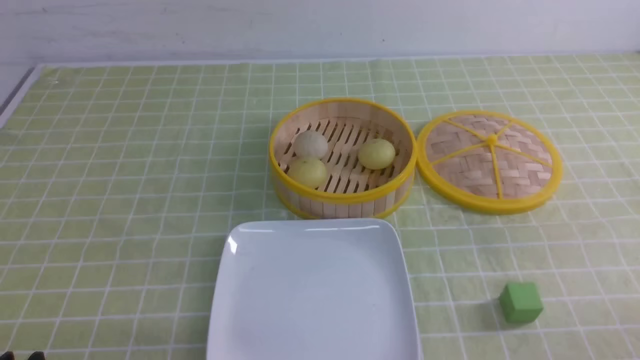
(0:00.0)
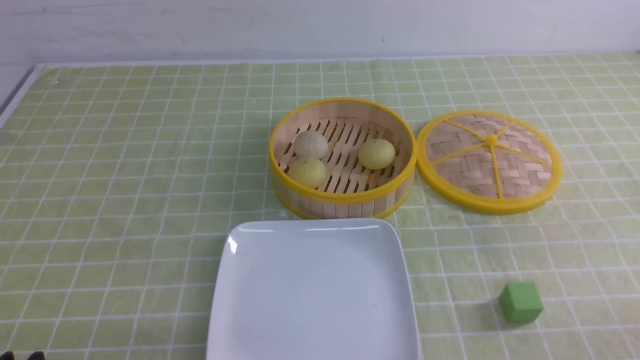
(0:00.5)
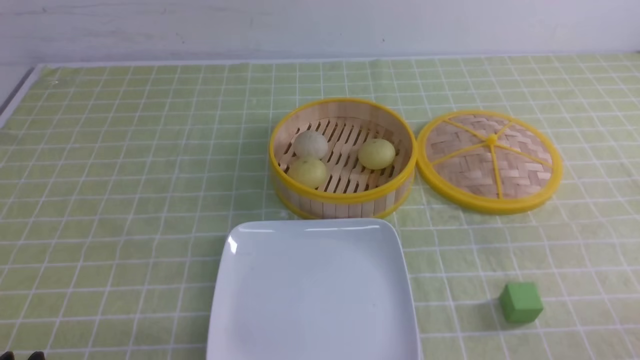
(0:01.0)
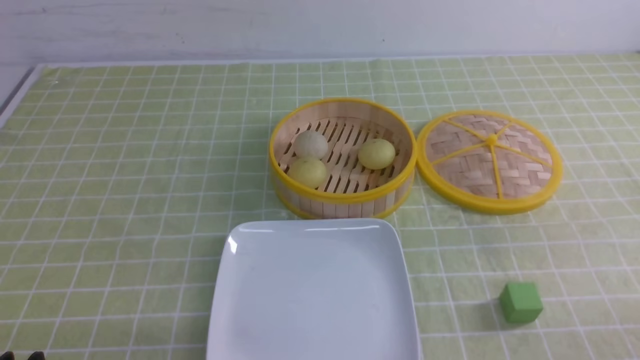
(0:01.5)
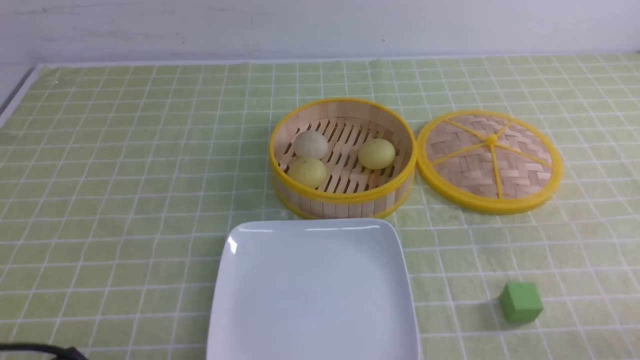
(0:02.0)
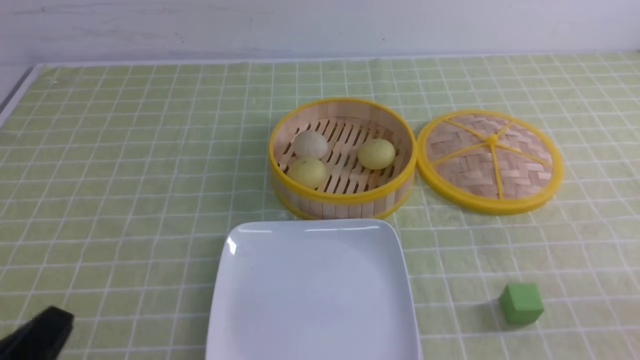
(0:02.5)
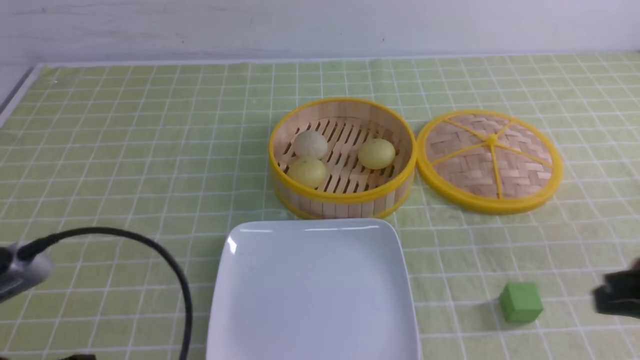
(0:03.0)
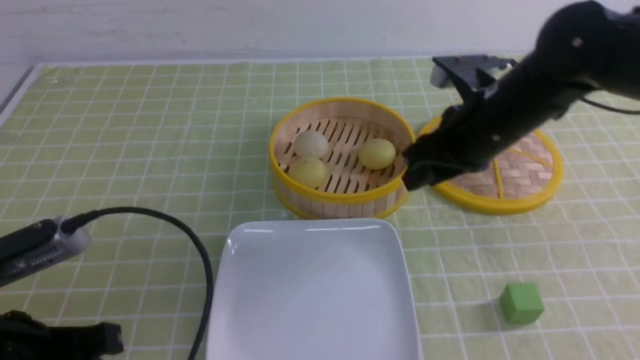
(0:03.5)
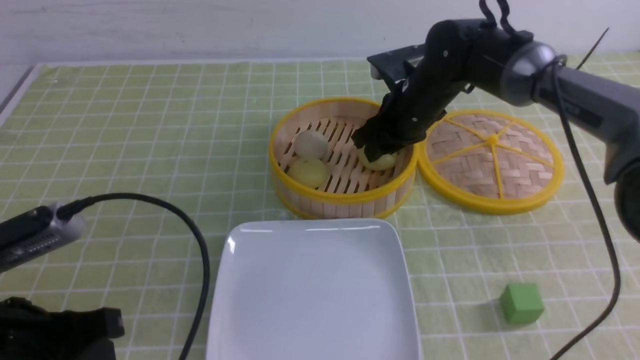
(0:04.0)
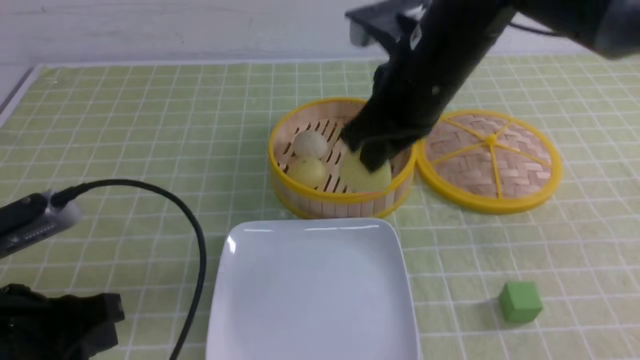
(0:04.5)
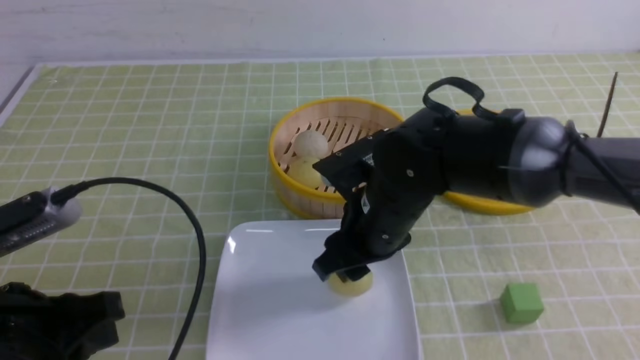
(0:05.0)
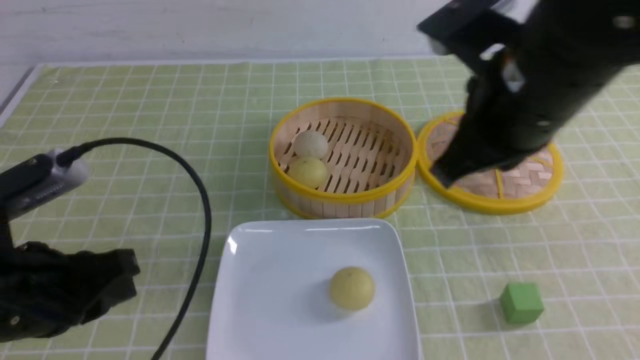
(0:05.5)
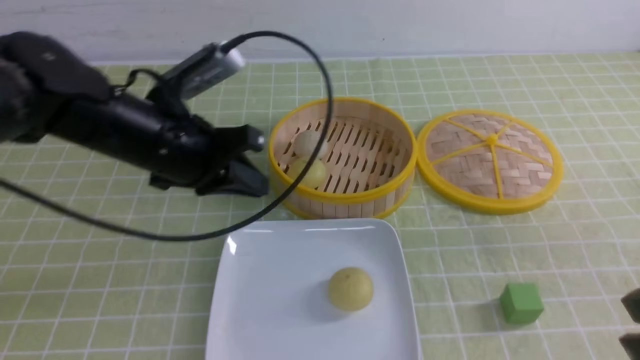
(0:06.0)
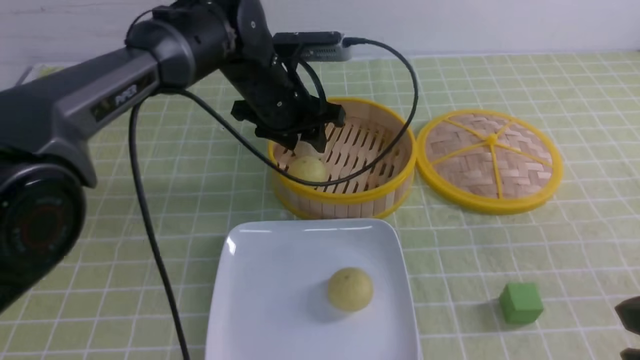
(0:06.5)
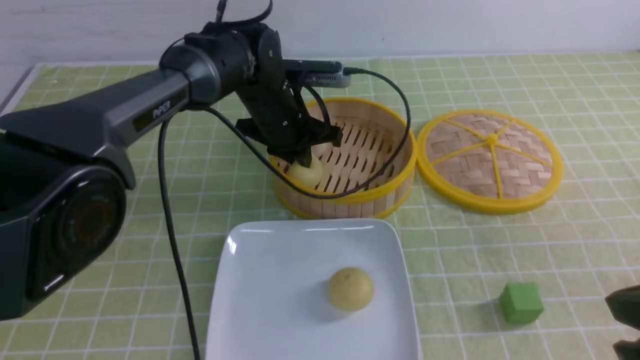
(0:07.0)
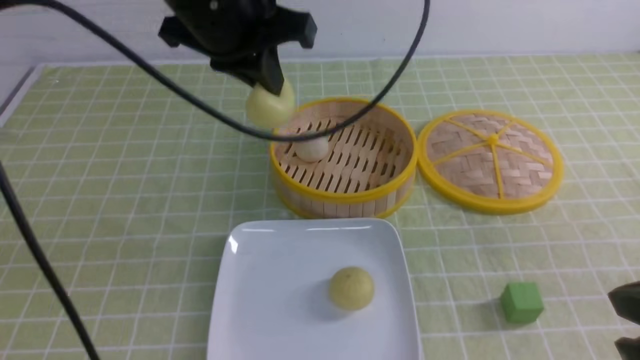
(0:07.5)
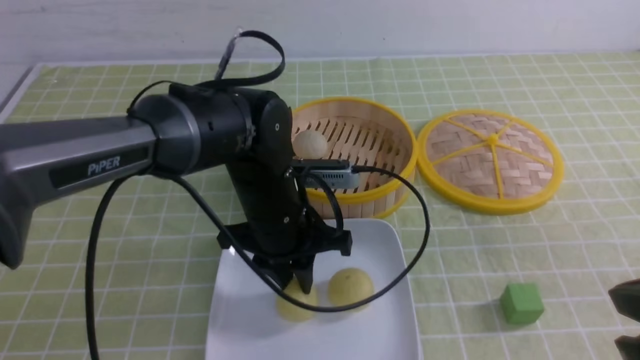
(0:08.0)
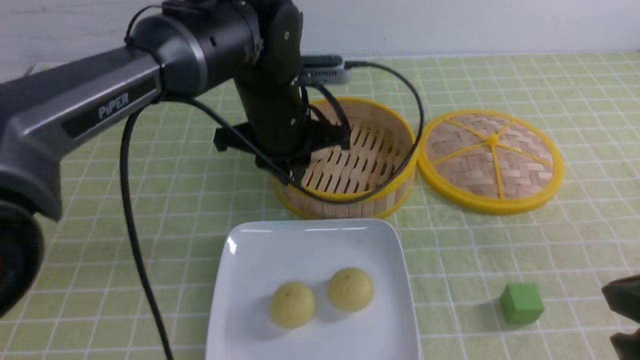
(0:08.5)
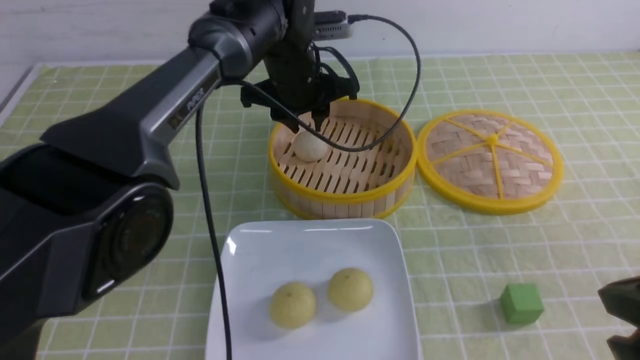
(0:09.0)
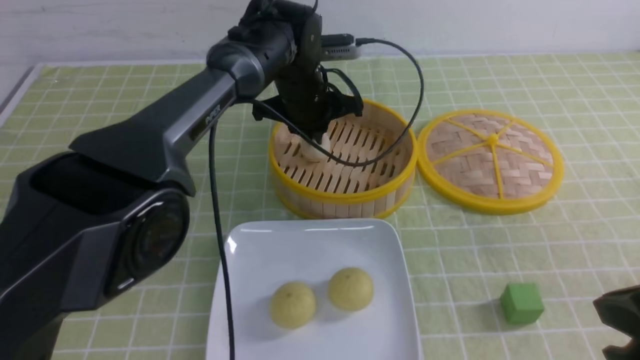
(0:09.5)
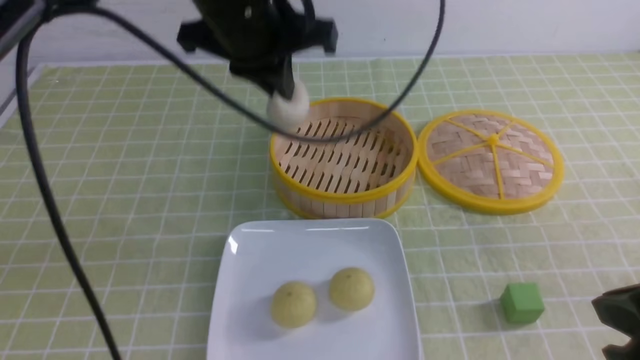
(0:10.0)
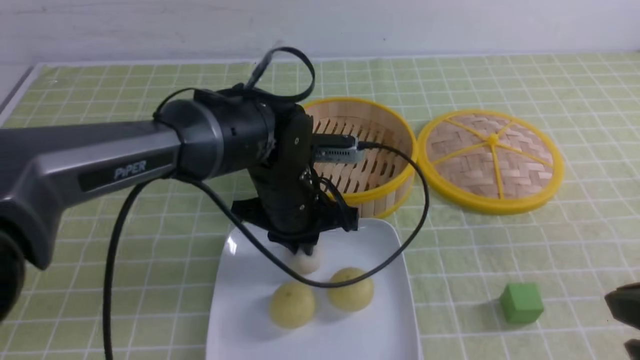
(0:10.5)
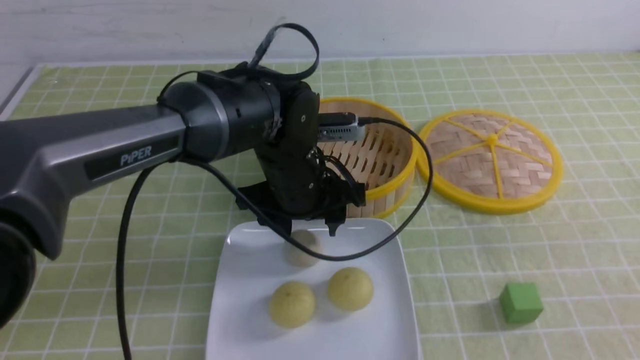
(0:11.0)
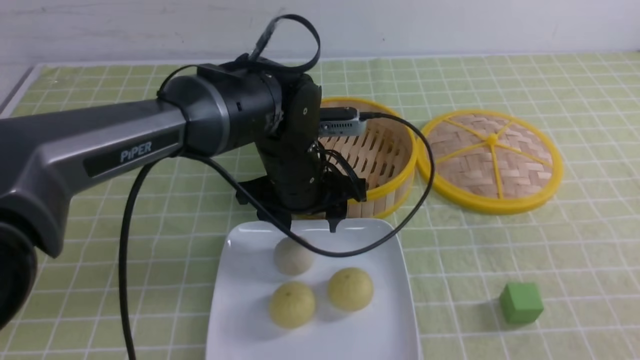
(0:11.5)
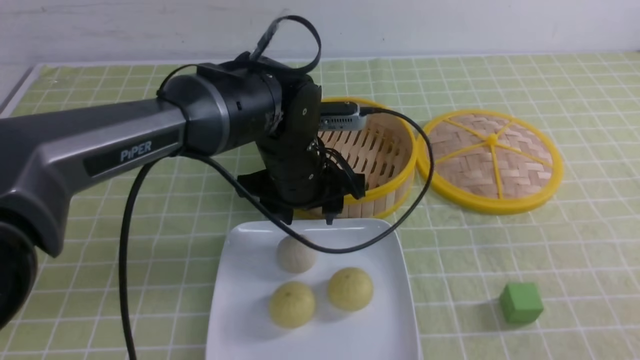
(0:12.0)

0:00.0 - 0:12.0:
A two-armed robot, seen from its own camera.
Step, 0:00.0 - 0:04.0: use the right arm to grab the steamed stuffed bun that is closest to it.
Step, 0:05.5 - 0:06.5: use the left arm to grab the steamed stuffed bun that is closest to it.
Step, 0:07.5 - 0:08.0: use the left arm to put the steamed stuffed bun into the plate.
Step, 0:08.5 - 0:09.0: use the left arm to grab the steamed stuffed bun that is closest to it.
Step, 0:10.0 - 0:10.5: use the left arm to put the steamed stuffed bun into the plate.
0:02.0 - 0:04.0: The left gripper goes roughly 10 cm upward and forward; the right gripper travels forward and to the left by approximately 50 cm, and closes, then reopens.
0:04.0 - 0:06.0: The left gripper moves forward and to the right, roughly 20 cm, while the right gripper is displaced backward by some 35 cm, and closes its fingers.
0:06.0 - 0:08.0: The left gripper goes approximately 10 cm to the right and downward, and moves approximately 10 cm forward and comes back.
0:08.0 - 0:10.0: The left gripper travels upward by some 15 cm, reaches about 15 cm forward, then returns, and closes up.
0:10.0 - 0:12.0: The right gripper heads backward and to the right, covering roughly 10 cm. Meanwhile the left gripper is displaced downward by about 10 cm, and opens.

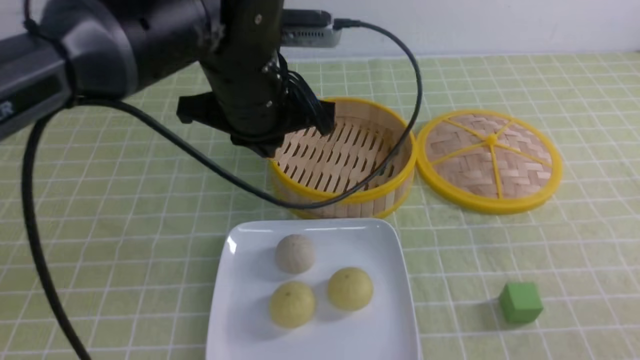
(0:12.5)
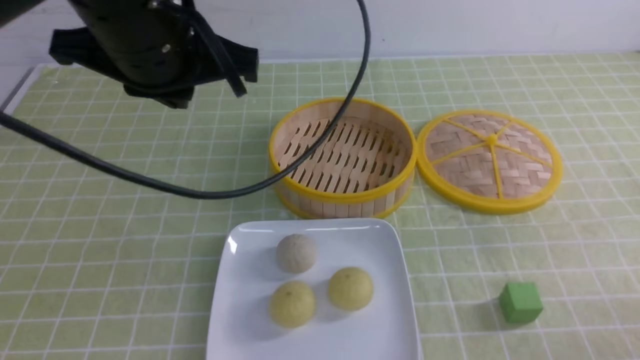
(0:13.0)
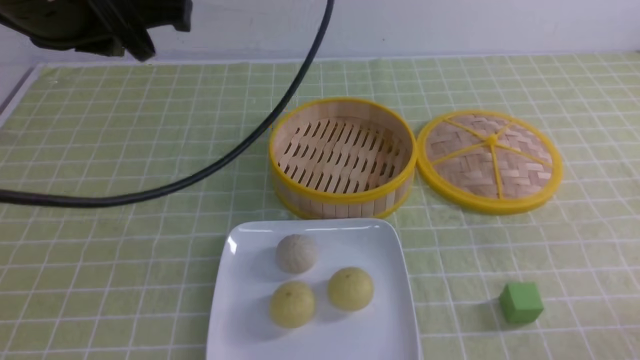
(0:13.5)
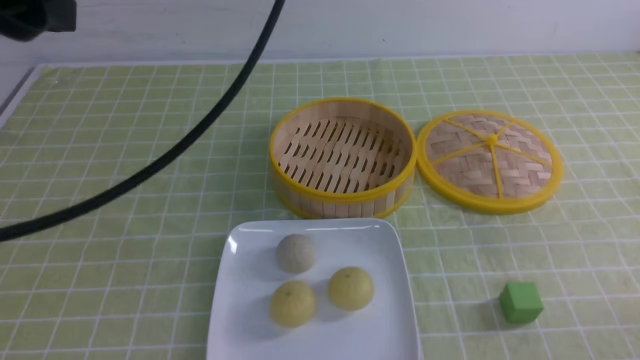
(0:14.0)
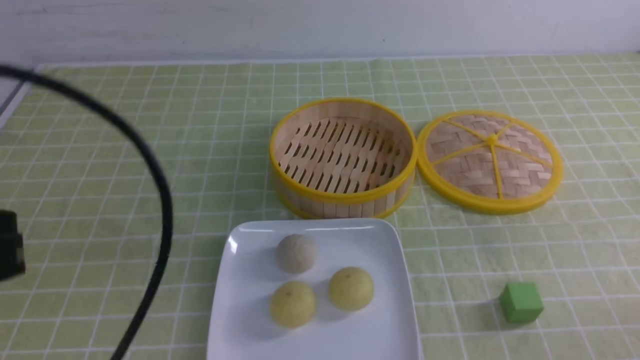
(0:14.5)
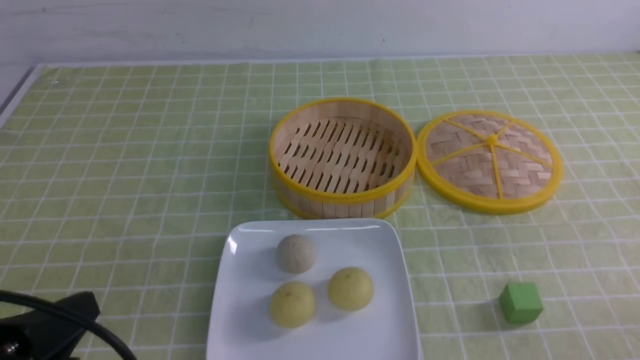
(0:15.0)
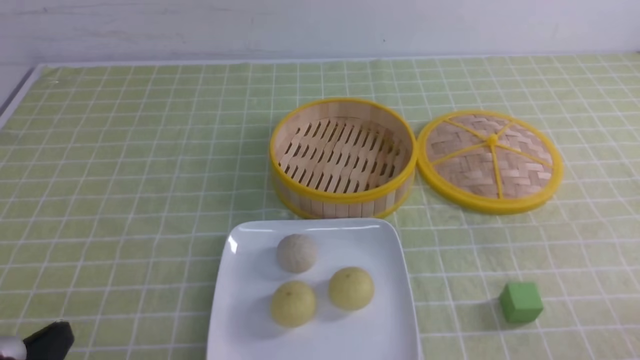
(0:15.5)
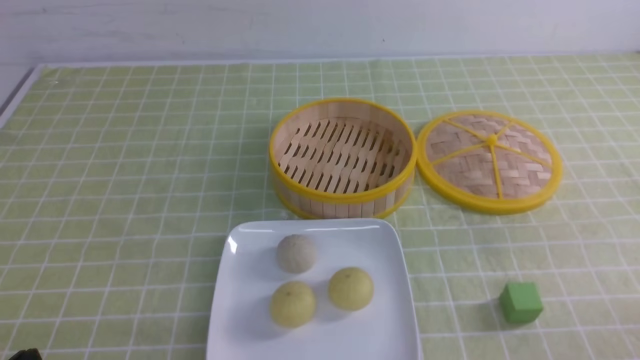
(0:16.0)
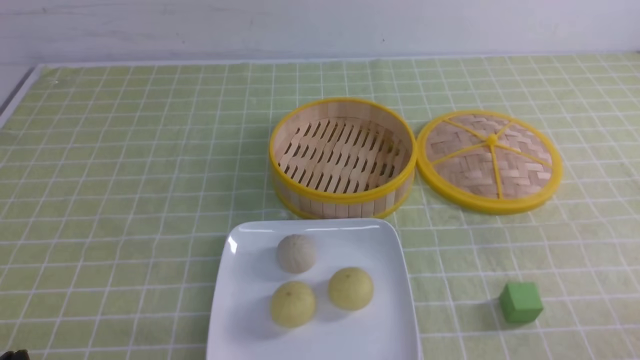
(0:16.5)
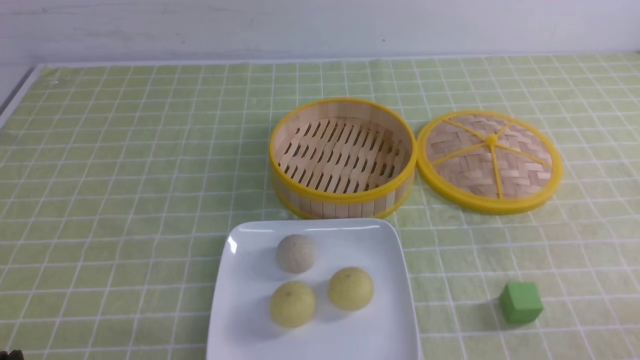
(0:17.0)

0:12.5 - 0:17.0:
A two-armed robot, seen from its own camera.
0:12.5 - 0:14.5: The right gripper is displaced downward by approximately 10 cm, while the left gripper heads backward and to the left, covering about 25 cm.
0:14.5 - 0:17.0: The left gripper is displaced downward by roughly 20 cm.
